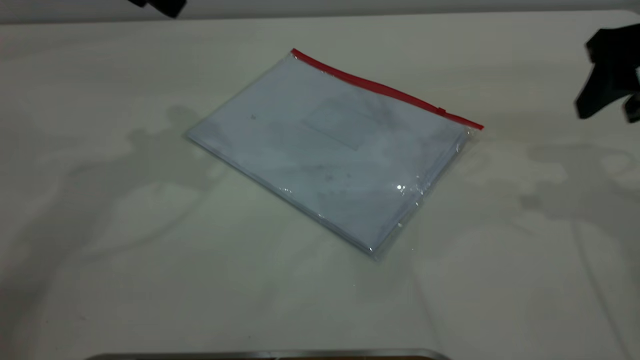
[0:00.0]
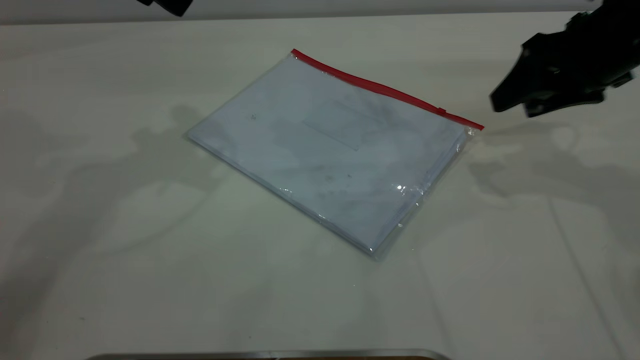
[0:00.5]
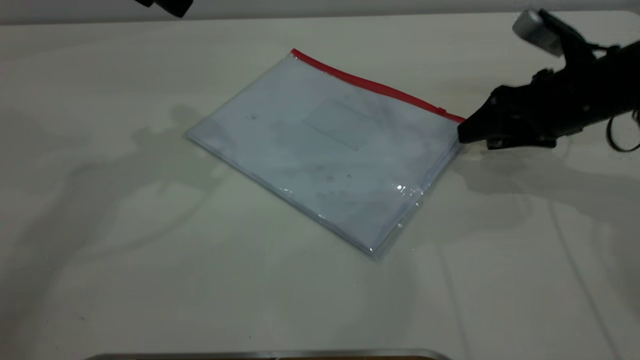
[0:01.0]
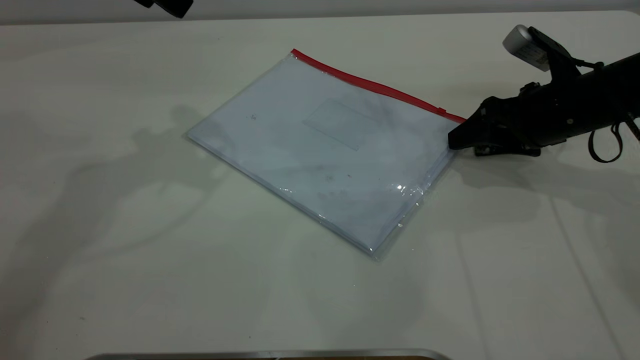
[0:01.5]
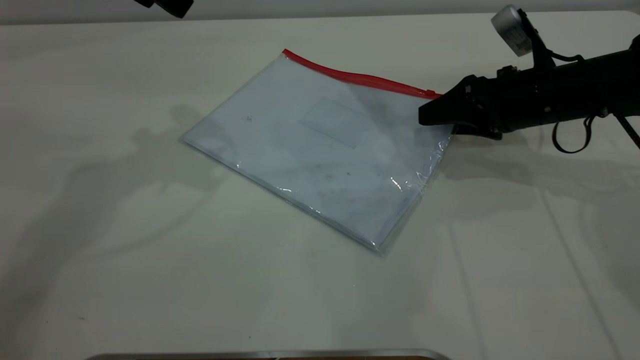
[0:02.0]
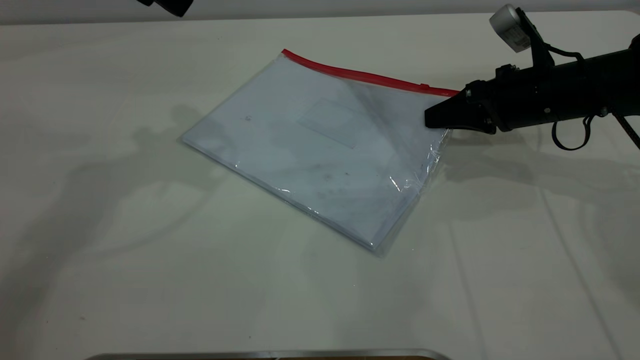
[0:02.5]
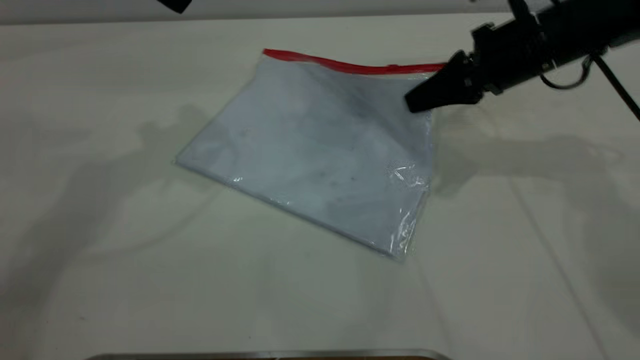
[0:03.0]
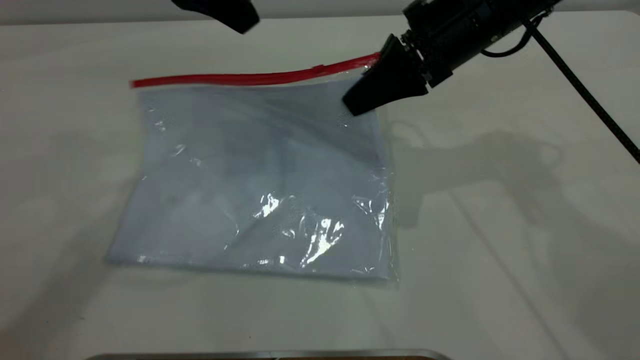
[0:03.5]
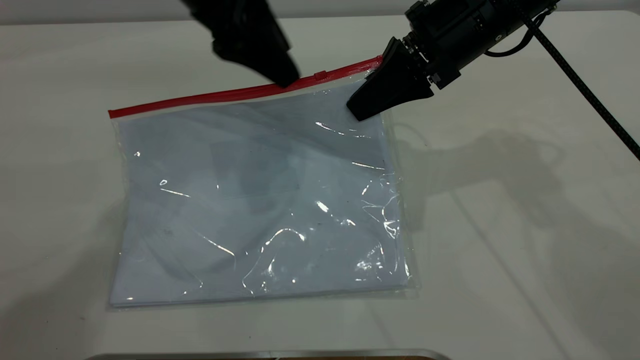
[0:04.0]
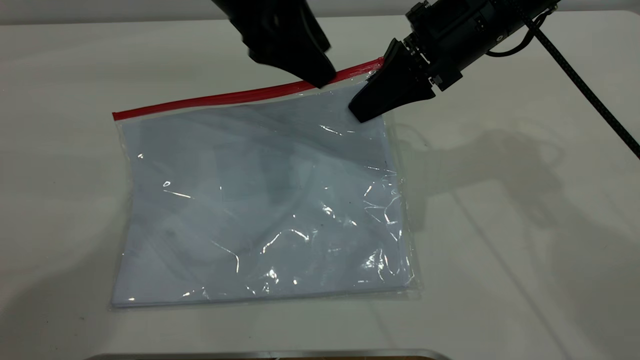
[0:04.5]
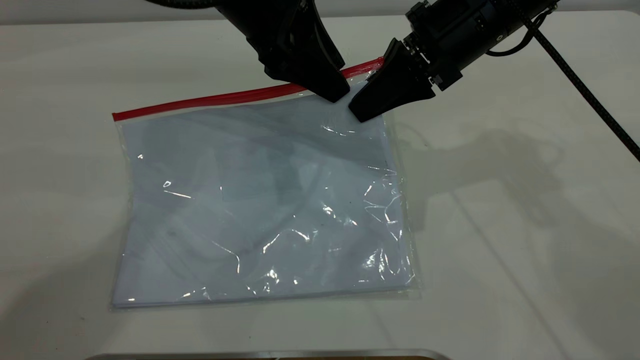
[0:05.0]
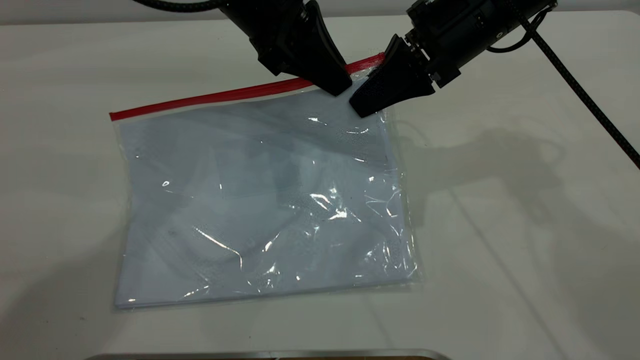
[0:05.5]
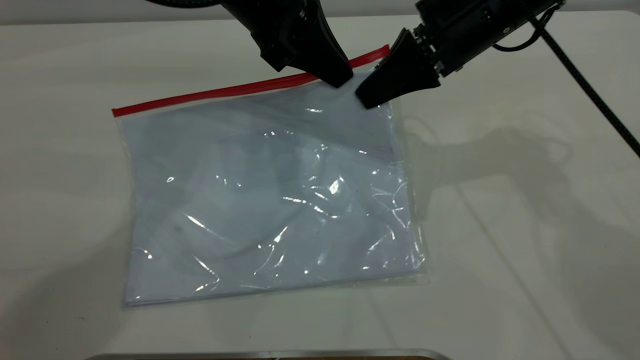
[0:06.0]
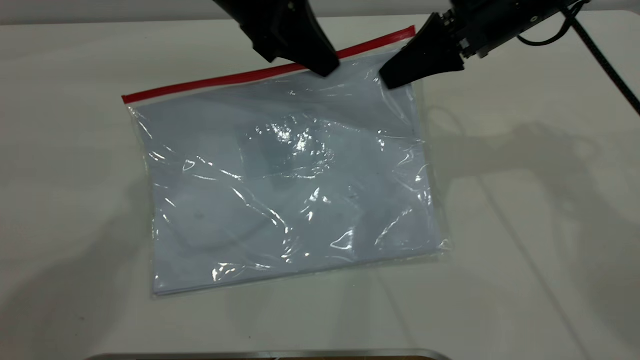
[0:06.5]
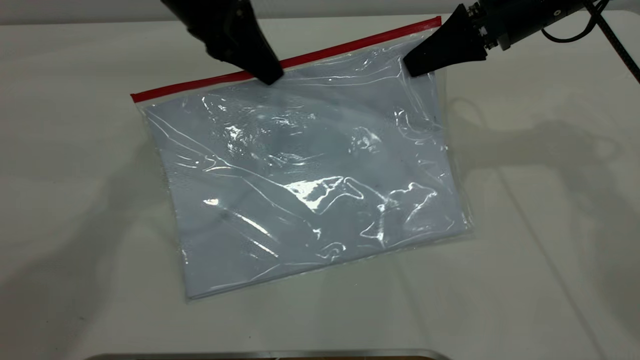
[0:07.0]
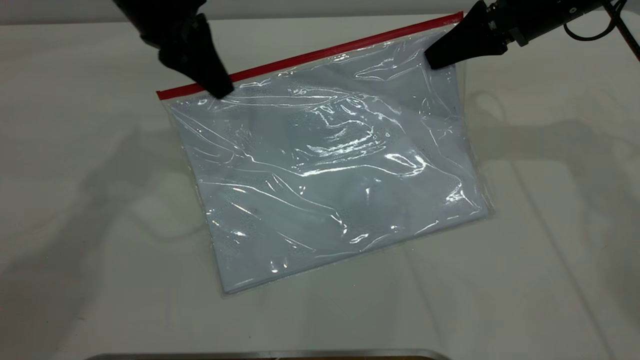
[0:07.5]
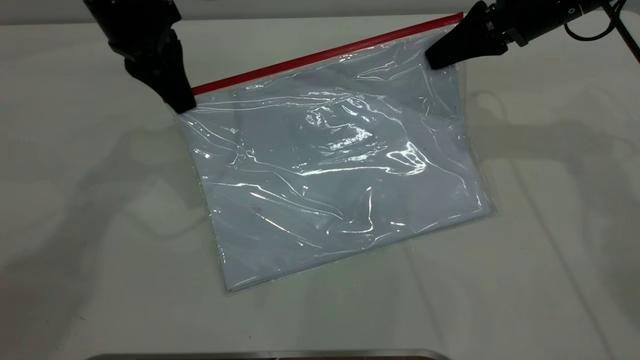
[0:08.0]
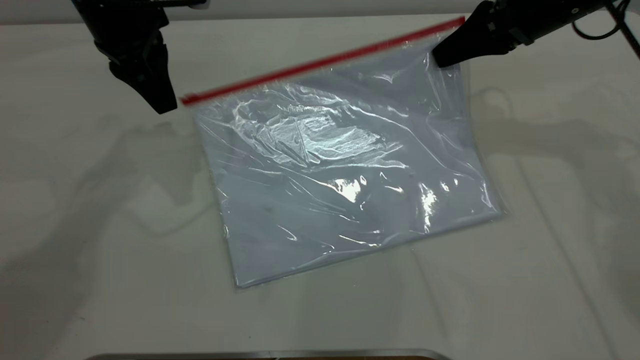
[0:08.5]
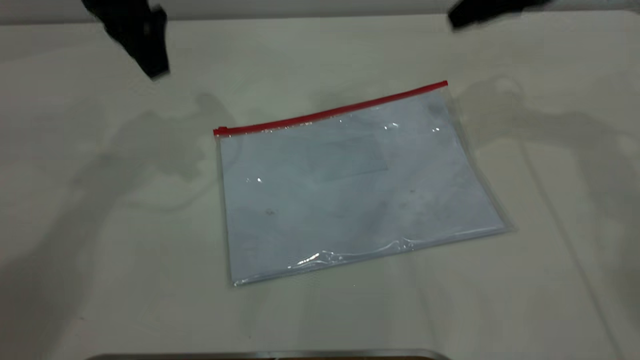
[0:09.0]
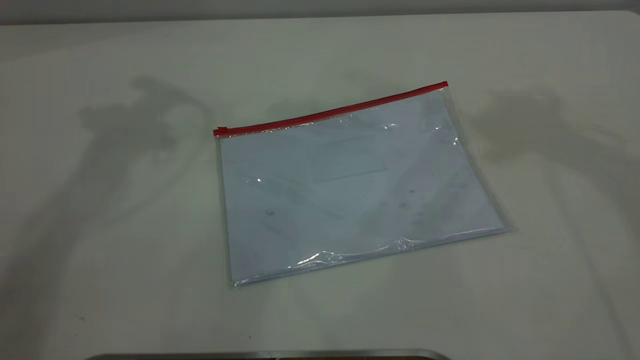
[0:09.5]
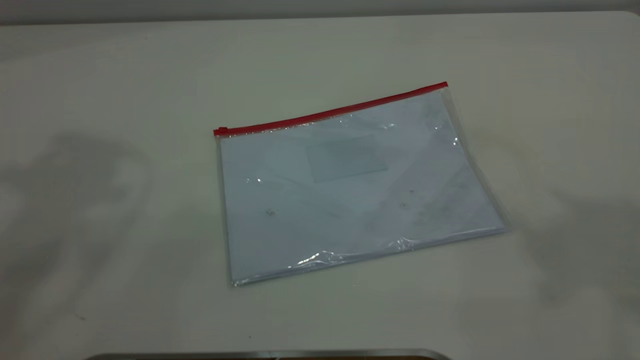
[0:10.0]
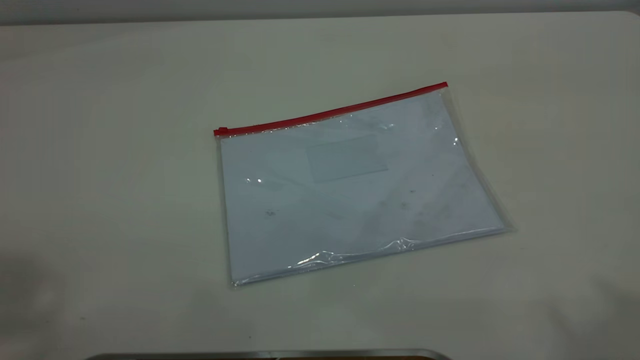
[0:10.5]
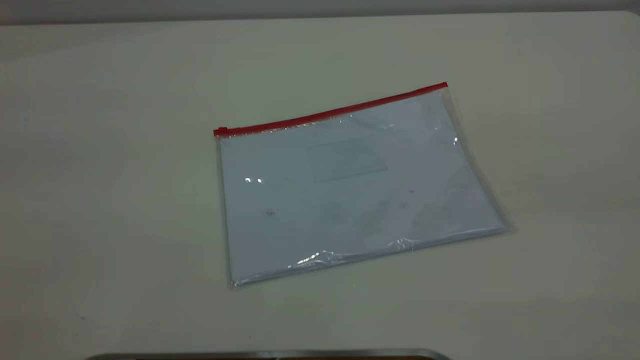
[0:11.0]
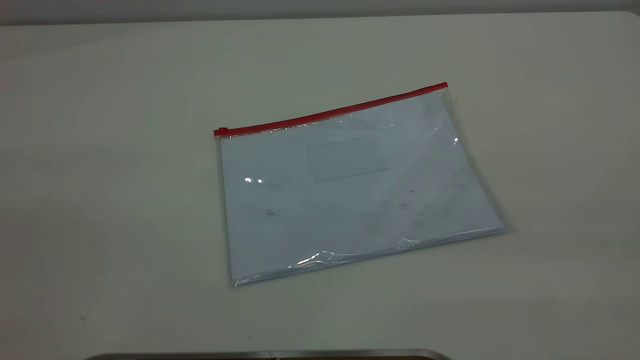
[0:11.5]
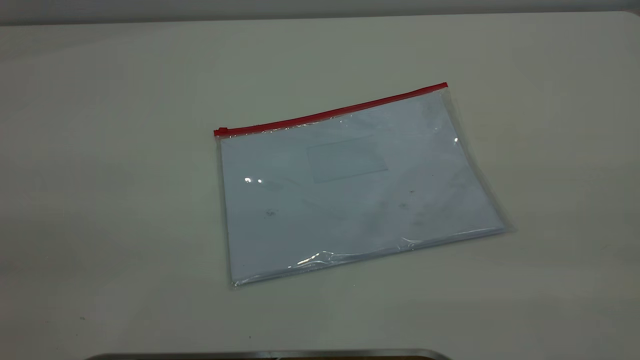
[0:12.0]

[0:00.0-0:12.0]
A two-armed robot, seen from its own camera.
Step, 0:00.0 to 0:03.0: Pick up the transparent plastic bag with the right gripper.
Step, 0:03.5 to 0:08.0: Pulling up the zipper on the transparent plastic bag with the left gripper to close it.
Step, 0:08.5 to 0:09.0: Place the transparent plastic bag.
0:00.0 to 0:02.0: The right gripper goes some 15 cm downward and forward.
0:02.0 to 0:04.0: The left gripper shifts roughly 10 cm to the right, while the right gripper travels upward and to the left by roughly 15 cm, and closes.
0:04.0 to 0:06.0: The left gripper closes.
0:06.0 to 0:08.0: The right gripper goes about 10 cm to the right. The left gripper goes about 10 cm to the left.
0:08.0 to 0:10.0: The right gripper goes about 50 cm upward and backward, and opens. The left gripper moves upward, about 35 cm, and opens its fingers.
